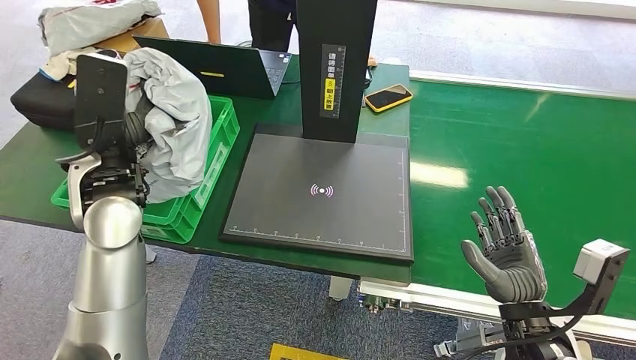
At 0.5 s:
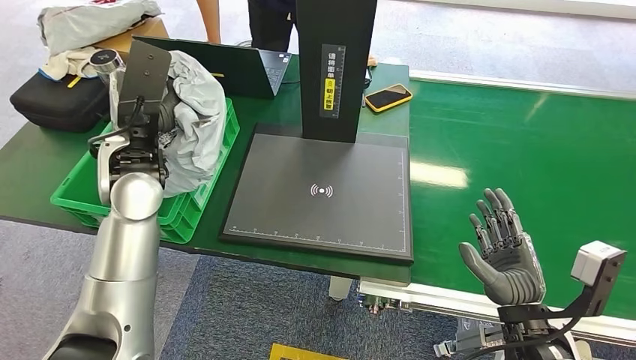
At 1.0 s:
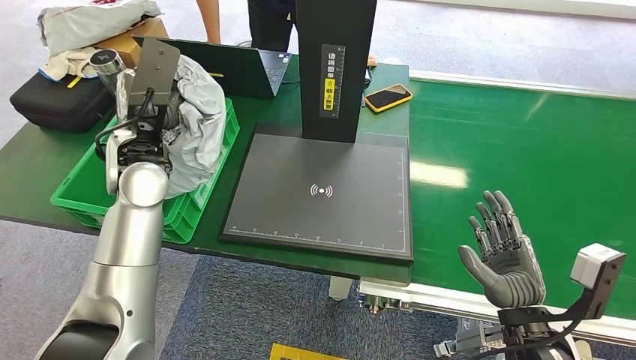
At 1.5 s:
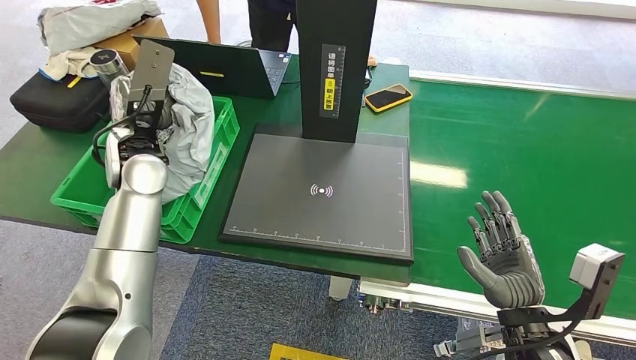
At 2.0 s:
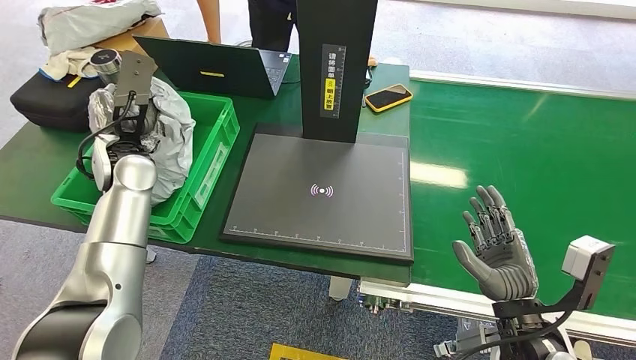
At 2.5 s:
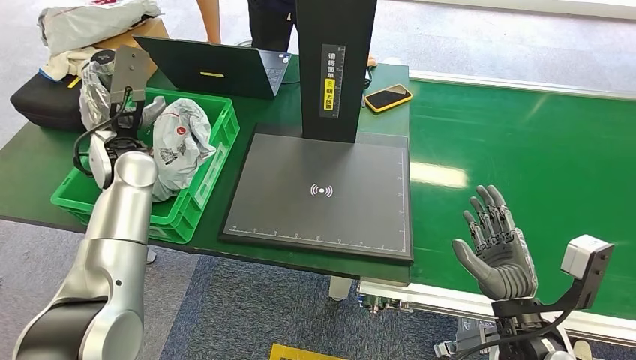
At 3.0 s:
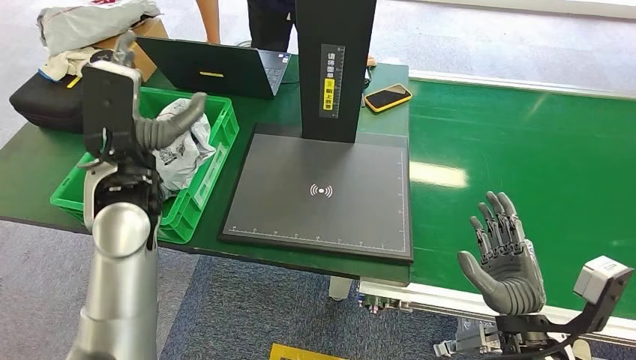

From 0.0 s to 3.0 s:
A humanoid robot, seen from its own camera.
Step, from 0.0 s to 3.0 s: Place the package into the parcel locker.
From 0.0 s to 1.5 s: The left hand heads forward, covering some 5 cm.
From 1.5 s to 3.0 s: The left hand travels backward by approximately 5 cm.
